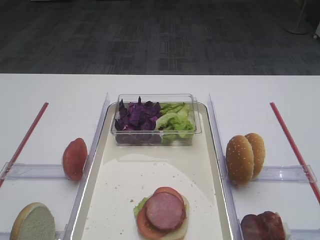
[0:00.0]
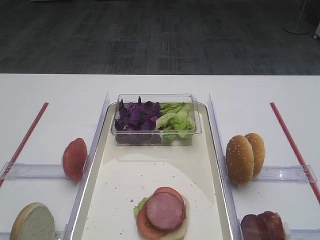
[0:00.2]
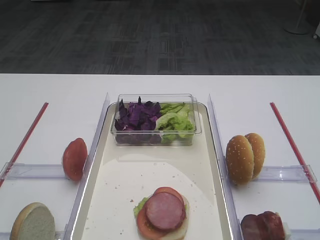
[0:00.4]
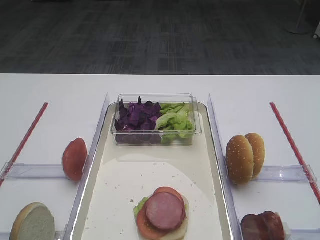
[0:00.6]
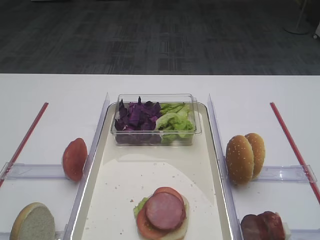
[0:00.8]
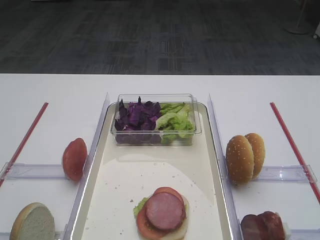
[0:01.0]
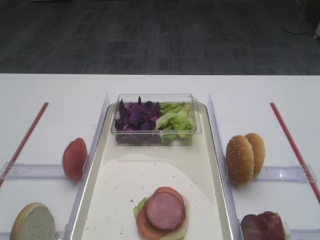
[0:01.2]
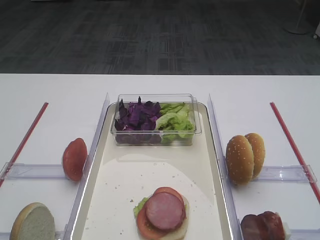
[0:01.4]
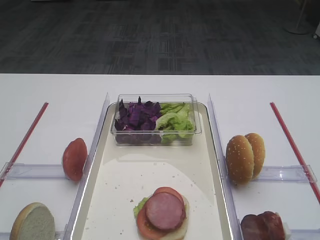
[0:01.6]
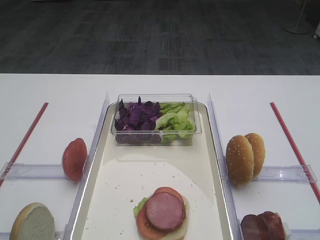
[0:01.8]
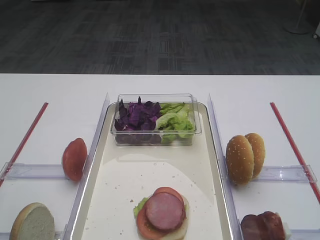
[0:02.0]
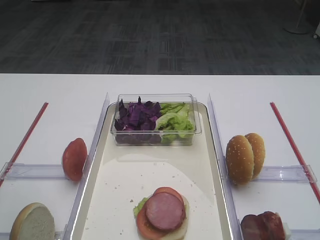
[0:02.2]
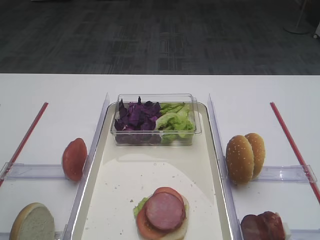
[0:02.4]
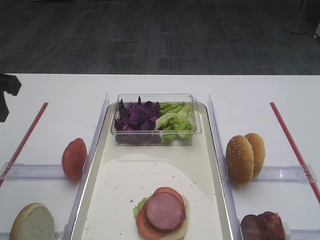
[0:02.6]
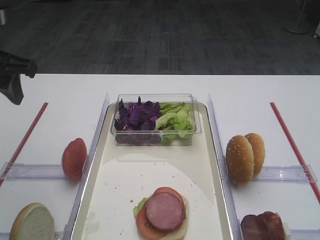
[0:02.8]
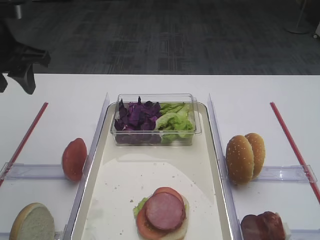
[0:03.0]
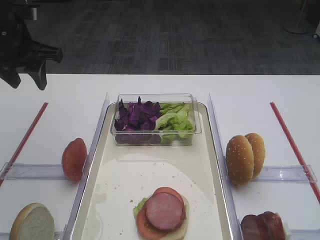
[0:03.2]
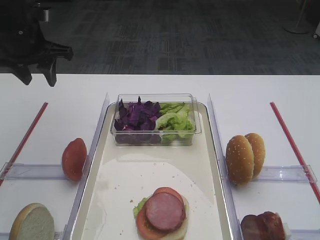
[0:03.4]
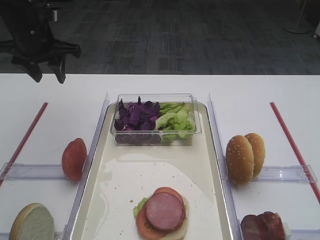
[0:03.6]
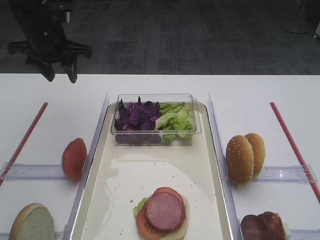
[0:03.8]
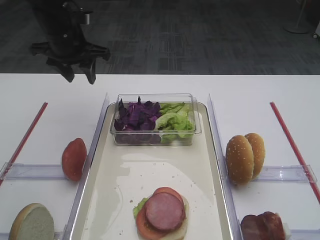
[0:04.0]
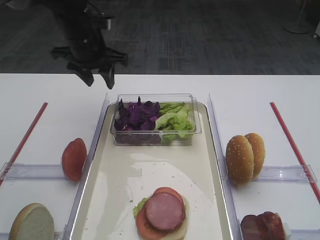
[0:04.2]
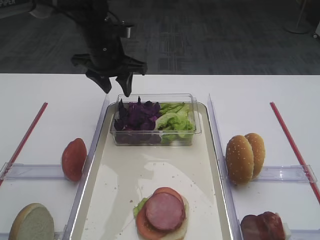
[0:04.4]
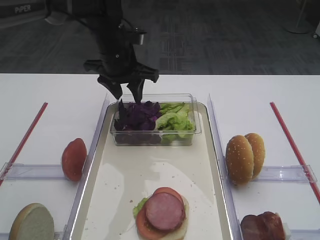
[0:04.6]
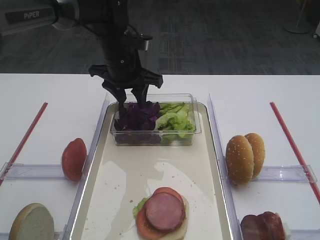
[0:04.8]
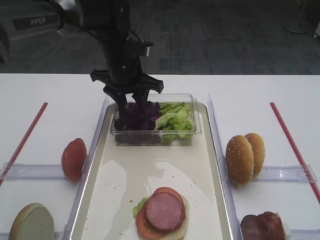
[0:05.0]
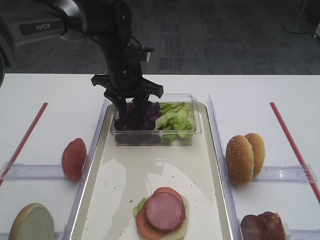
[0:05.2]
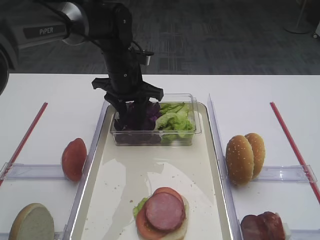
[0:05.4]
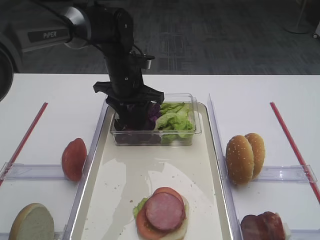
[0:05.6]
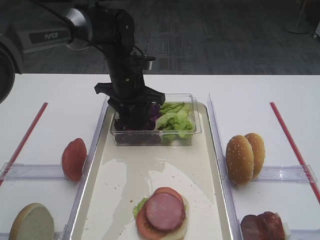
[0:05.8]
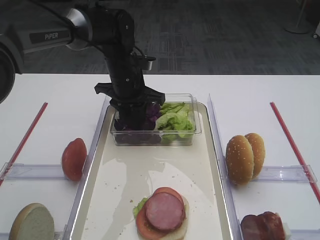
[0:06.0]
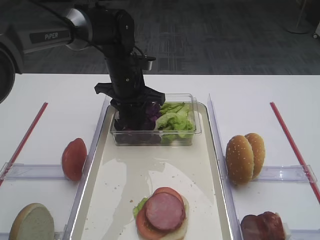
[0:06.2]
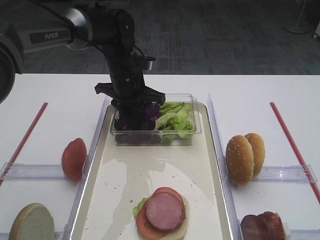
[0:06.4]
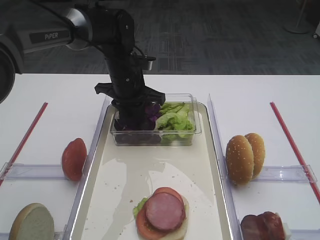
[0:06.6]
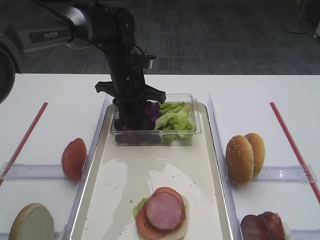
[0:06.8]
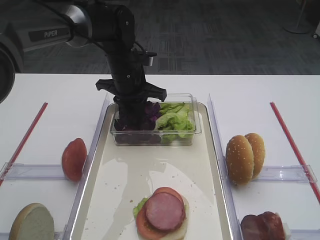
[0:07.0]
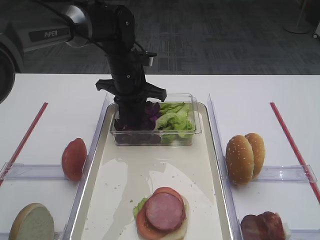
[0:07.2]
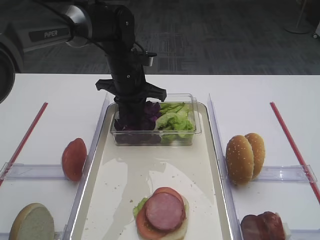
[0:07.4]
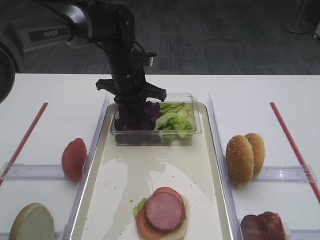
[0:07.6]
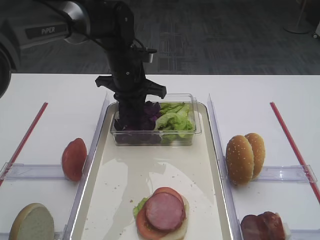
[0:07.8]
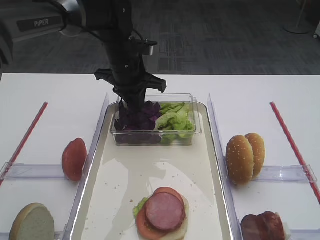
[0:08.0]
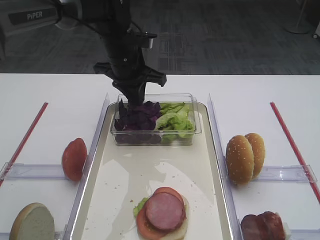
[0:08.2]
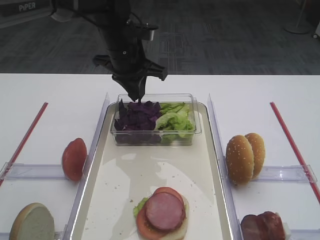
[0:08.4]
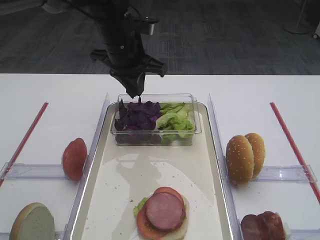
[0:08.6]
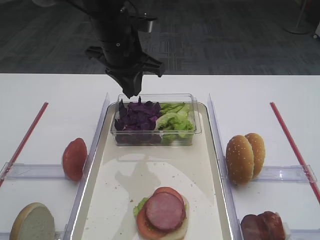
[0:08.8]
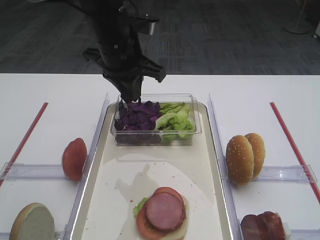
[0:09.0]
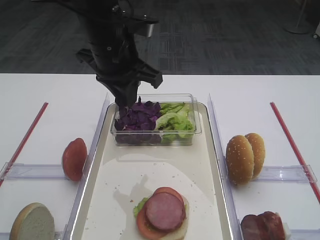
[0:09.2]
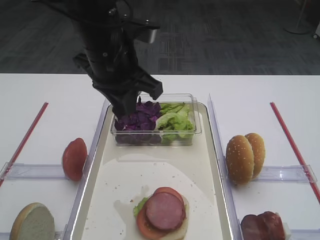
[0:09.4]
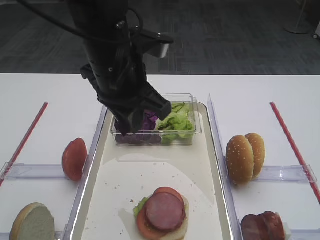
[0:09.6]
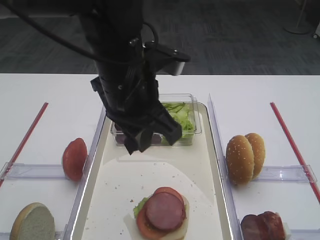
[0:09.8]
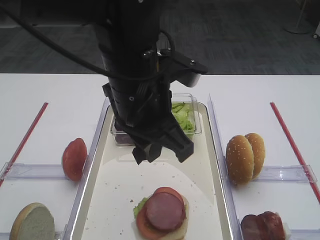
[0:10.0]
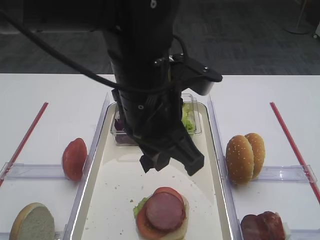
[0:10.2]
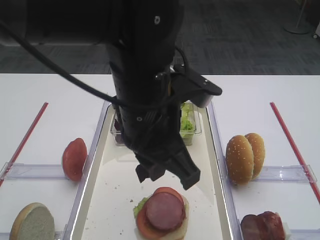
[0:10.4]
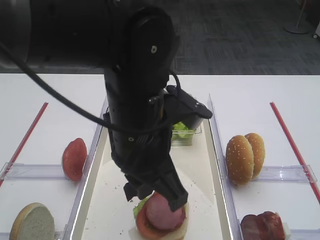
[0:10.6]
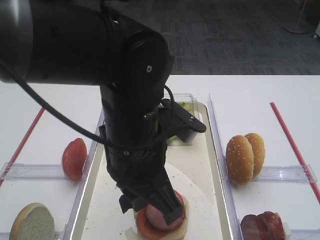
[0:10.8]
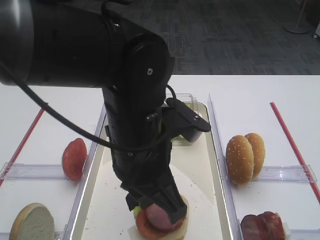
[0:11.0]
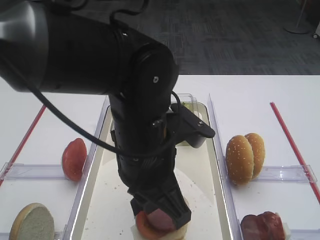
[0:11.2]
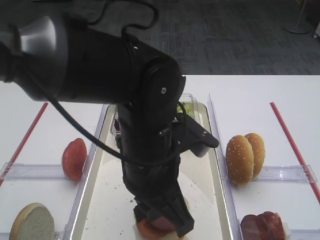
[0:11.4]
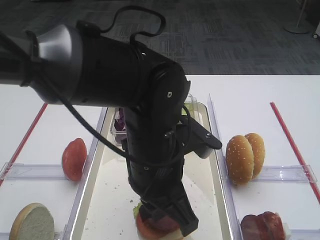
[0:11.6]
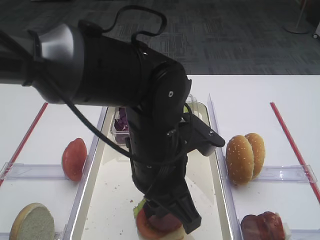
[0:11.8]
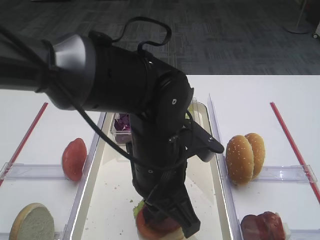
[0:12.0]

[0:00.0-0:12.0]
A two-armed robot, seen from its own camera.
Step, 0:00.0 to 0:08.4: Pick up the purple cabbage with the left gripper.
0:01.6 to 0:03.0: The left gripper is displaced forward by about 30 cm.
0:03.0 to 0:04.4: The left gripper is displaced to the right, forward and downward by some 20 cm.
0:04.4 to 0:06.0: The left gripper moves downward, approximately 5 cm.
0:06.0 to 0:07.6: Neither gripper changes place.
0:07.6 to 0:09.0: The left gripper heads upward and backward, covering approximately 10 cm.
0:09.0 to 0:10.4: The left gripper travels backward and to the right by some 15 cm.
0:10.4 to 0:12.0: The left gripper moves downward, approximately 10 cm.

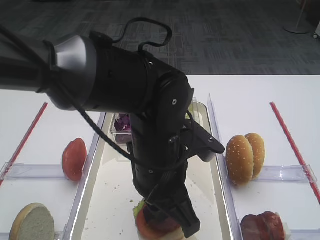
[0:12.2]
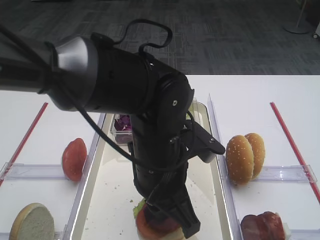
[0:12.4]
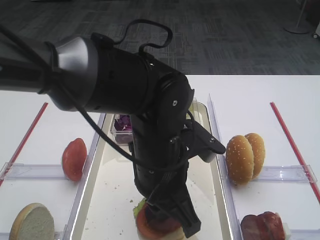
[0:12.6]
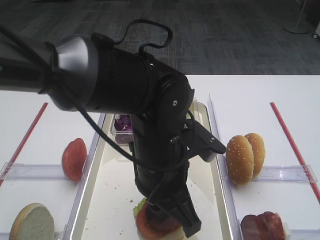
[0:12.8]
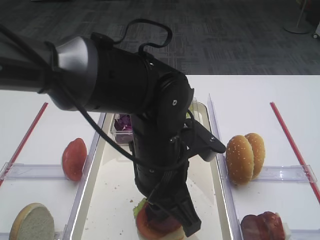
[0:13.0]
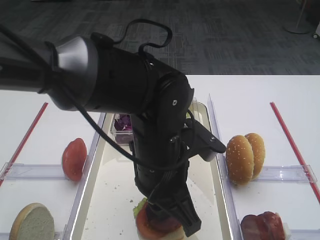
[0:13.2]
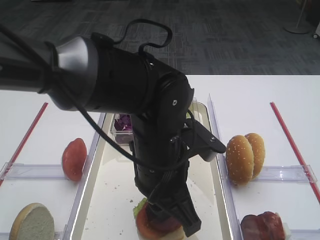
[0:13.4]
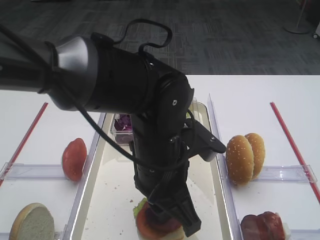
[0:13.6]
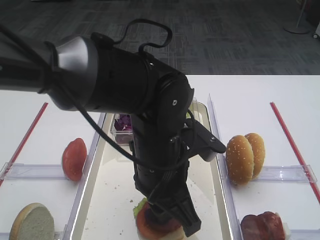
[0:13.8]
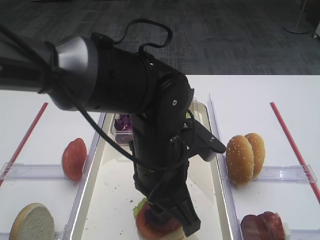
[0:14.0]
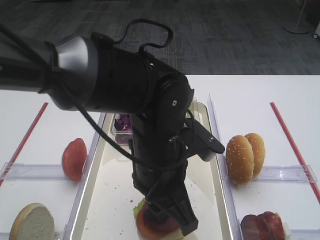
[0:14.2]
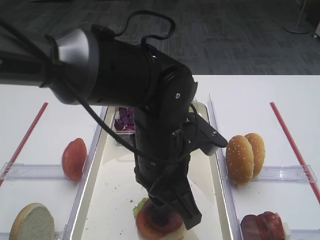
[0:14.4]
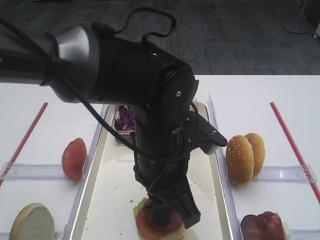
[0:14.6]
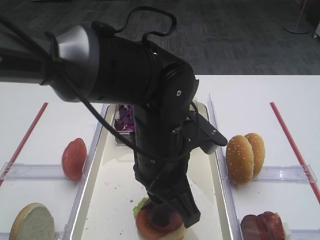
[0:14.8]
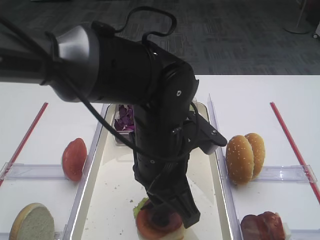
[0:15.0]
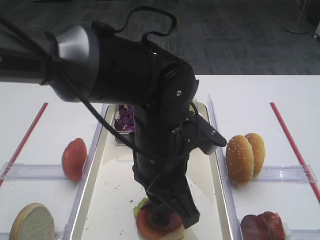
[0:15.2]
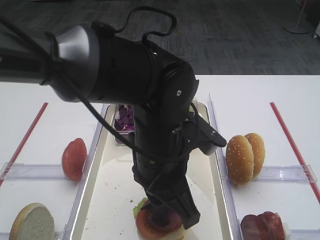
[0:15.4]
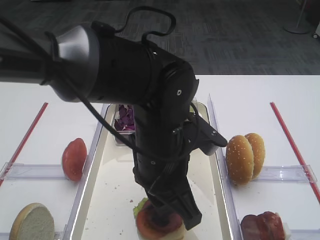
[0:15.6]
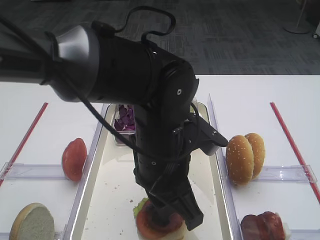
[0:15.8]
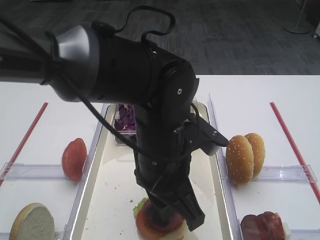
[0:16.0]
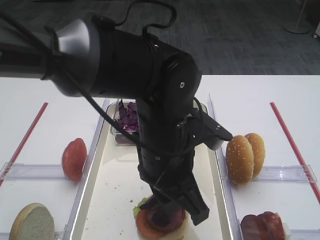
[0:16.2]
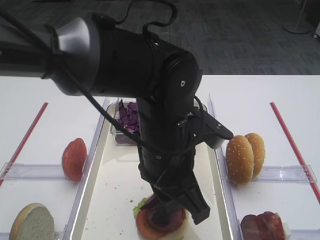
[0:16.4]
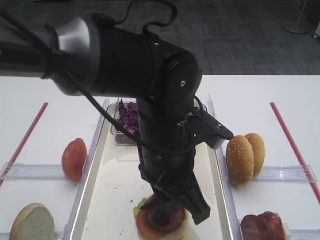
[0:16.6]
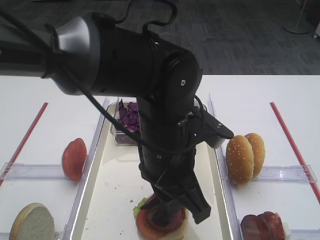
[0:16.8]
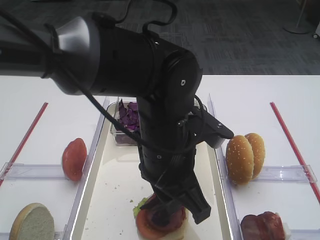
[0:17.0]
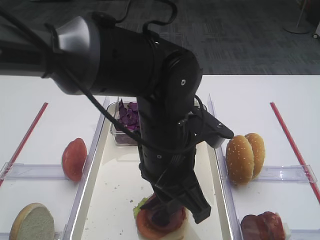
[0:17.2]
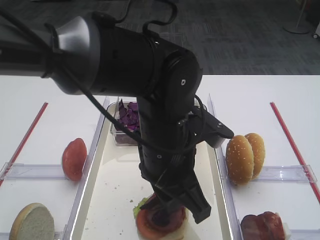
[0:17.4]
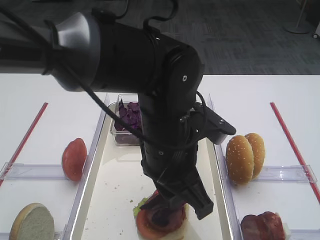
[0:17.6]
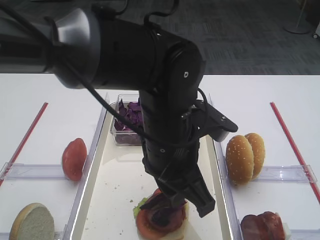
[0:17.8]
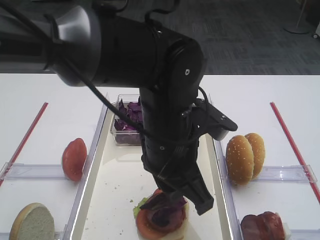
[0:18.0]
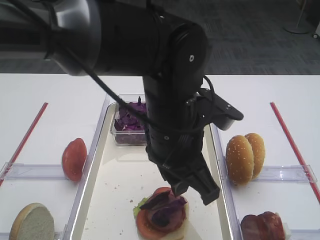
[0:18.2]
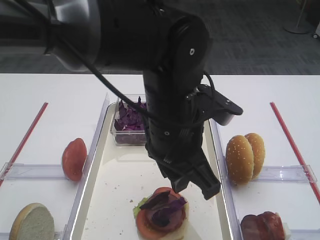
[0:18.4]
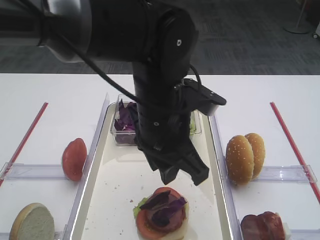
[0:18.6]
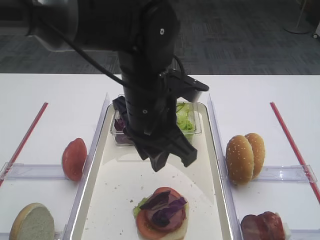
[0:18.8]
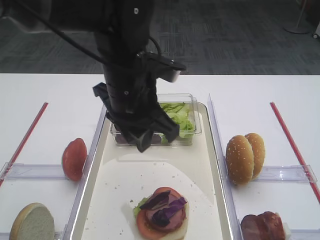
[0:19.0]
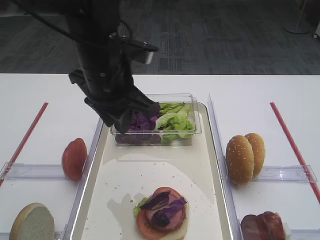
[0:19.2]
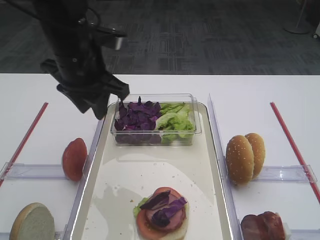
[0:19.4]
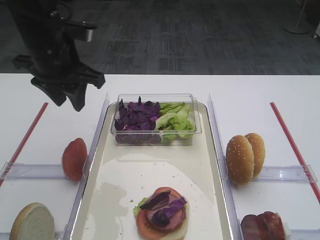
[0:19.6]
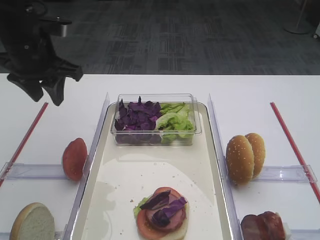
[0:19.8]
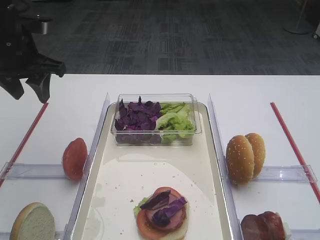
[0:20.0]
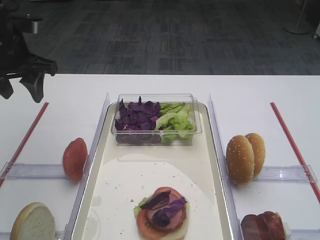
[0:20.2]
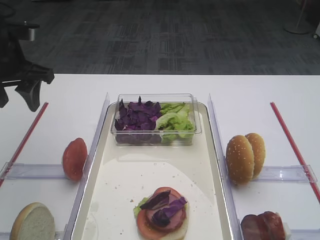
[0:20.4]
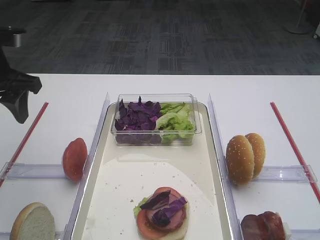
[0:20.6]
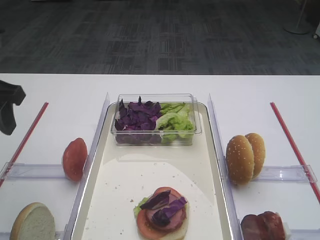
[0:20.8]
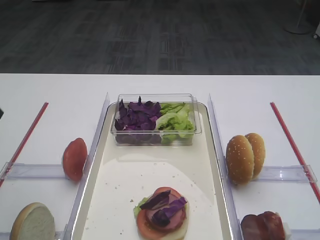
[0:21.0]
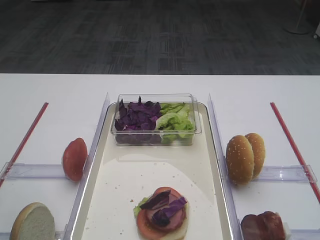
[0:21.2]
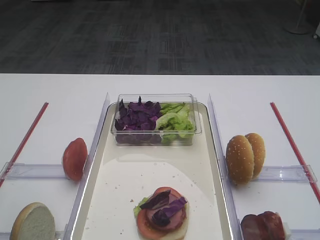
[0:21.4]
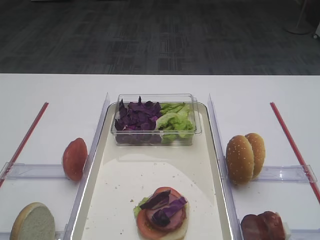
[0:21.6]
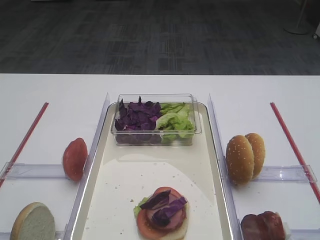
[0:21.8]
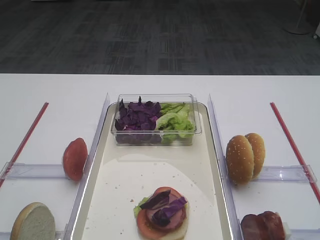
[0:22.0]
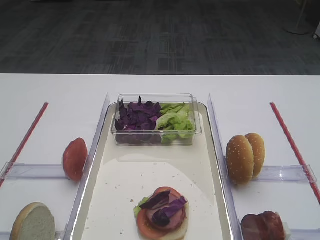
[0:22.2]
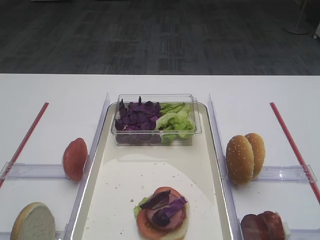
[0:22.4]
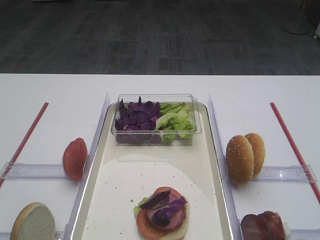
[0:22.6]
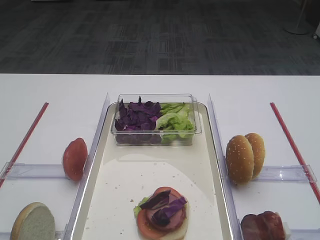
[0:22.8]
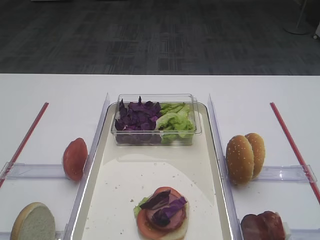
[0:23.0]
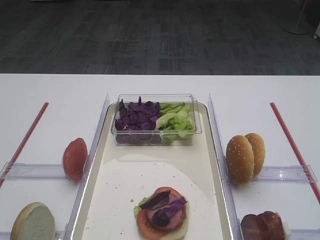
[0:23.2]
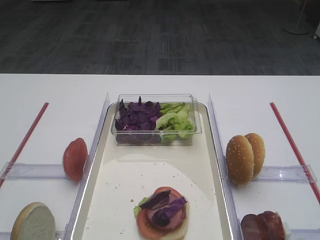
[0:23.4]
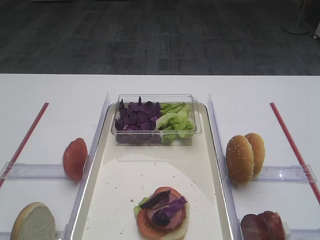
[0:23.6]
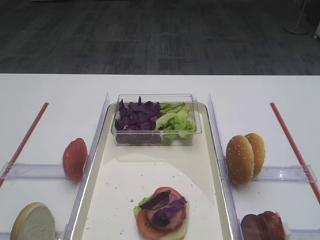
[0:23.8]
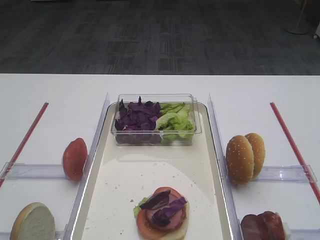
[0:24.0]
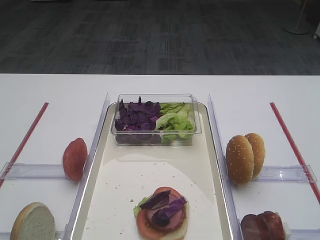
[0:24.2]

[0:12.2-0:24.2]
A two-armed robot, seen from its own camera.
Step, 0:12.2 to 0:18.0: Place the purple cabbage on the cutlet with the left gripper.
0:12.2 to 0:15.2: Neither gripper changes place.
0:15.2 to 0:16.6: The two grippers keep their place.
0:16.6 to 0:18.2: There are only small adjustments of the grippers.
0:18.2 to 0:19.8: The left gripper shifts approximately 25 cm to the left and forward.
0:19.8 to 0:21.2: The left gripper travels backward by approximately 20 cm.
